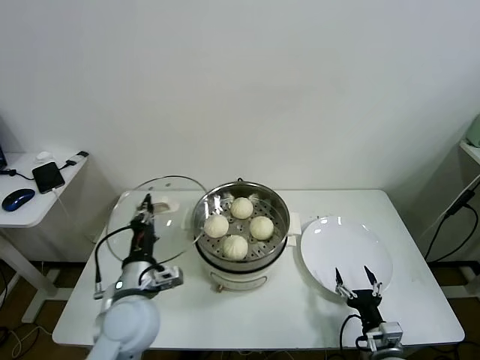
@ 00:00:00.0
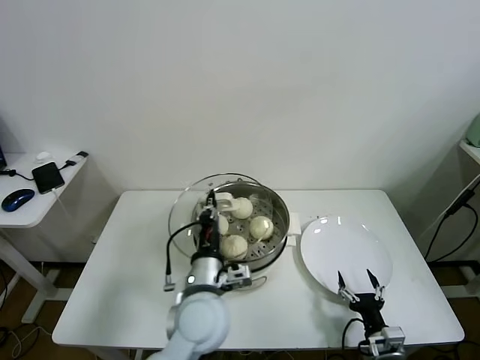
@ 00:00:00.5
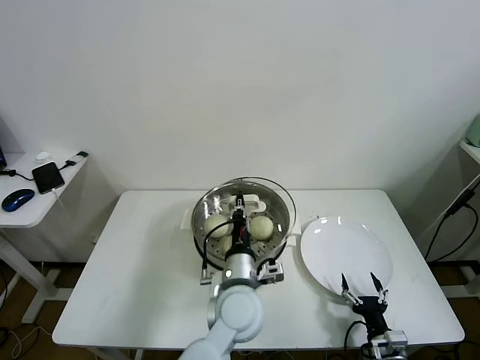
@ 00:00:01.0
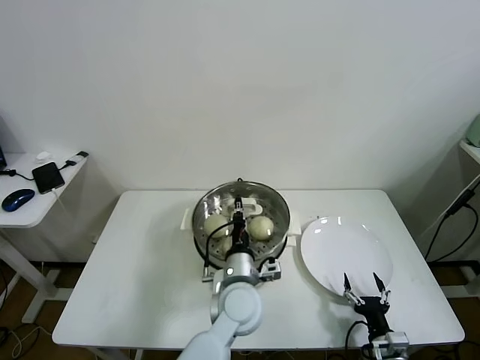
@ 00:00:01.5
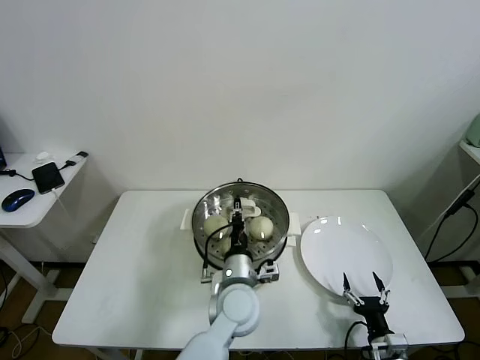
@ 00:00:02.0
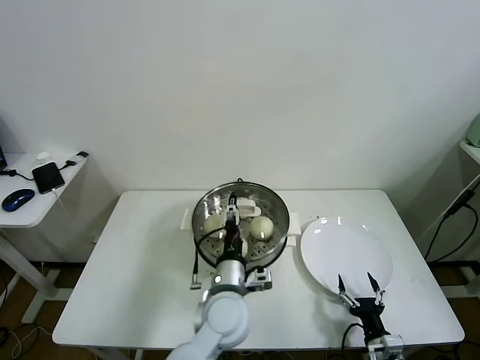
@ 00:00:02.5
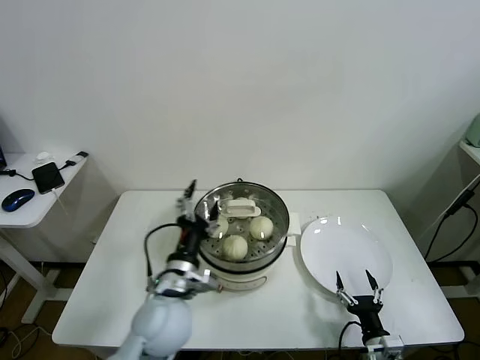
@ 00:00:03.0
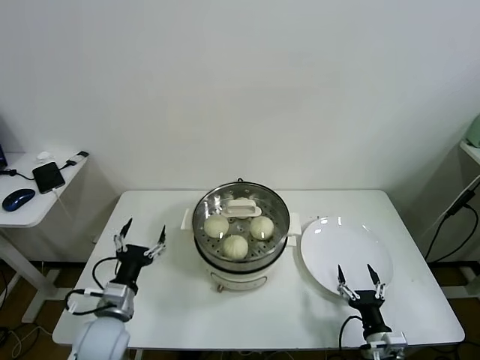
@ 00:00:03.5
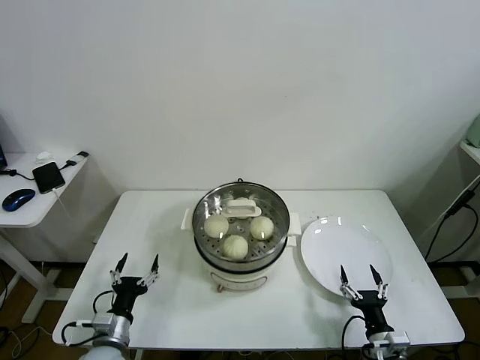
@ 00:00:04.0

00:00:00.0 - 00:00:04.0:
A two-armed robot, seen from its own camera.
Task of the whole recording: take steamed baozi put them in steamer.
Step, 00:00:00.0 - 00:00:02.0: Place the pot lid on the steamer with left gripper.
00:00:00.0 - 00:00:02.0: The left gripper shifts some 20 cm to the right.
00:00:02.0 - 00:00:04.0: The left gripper travels to the left by roughly 30 cm, and opens.
